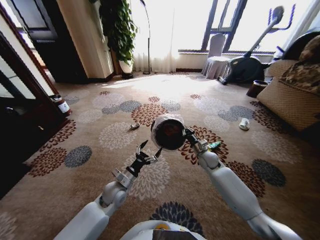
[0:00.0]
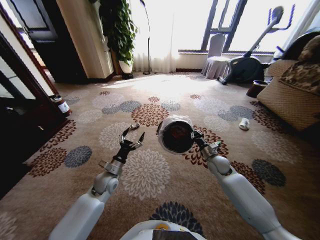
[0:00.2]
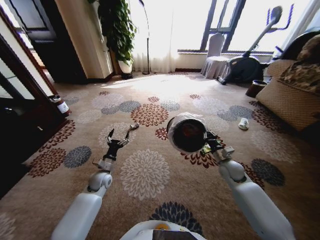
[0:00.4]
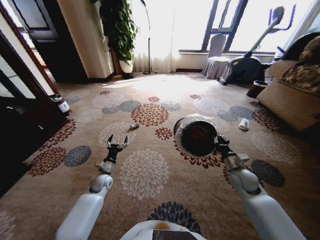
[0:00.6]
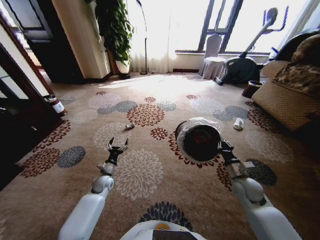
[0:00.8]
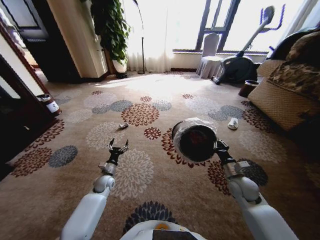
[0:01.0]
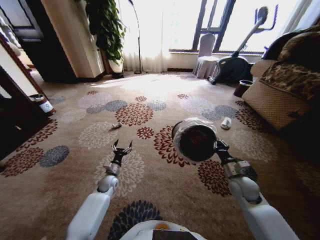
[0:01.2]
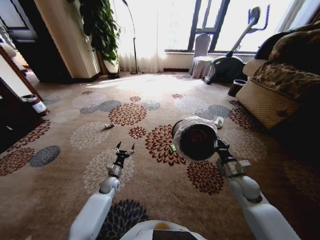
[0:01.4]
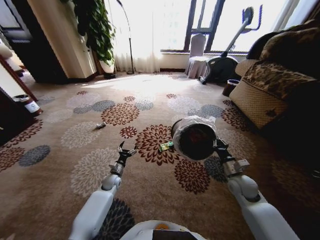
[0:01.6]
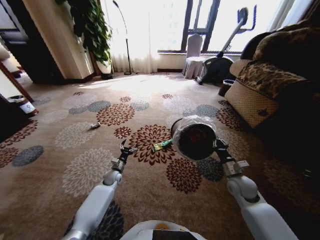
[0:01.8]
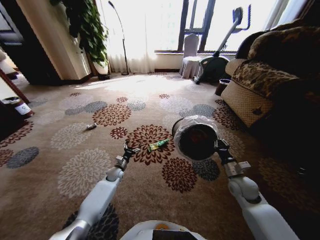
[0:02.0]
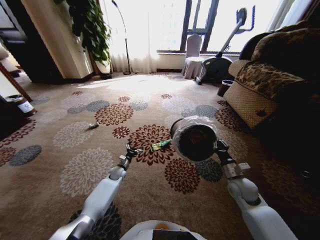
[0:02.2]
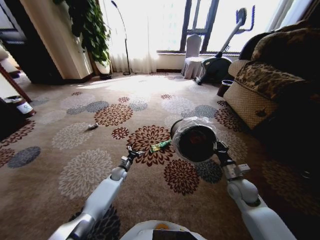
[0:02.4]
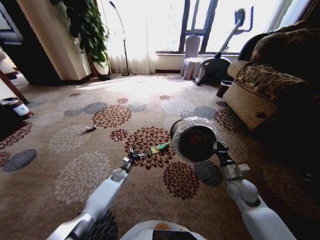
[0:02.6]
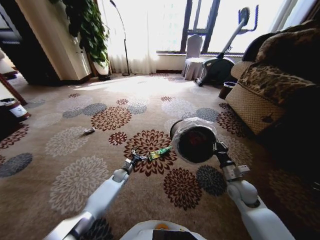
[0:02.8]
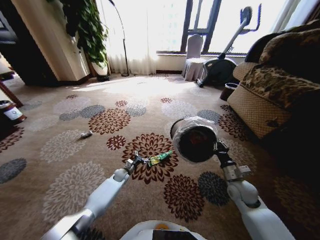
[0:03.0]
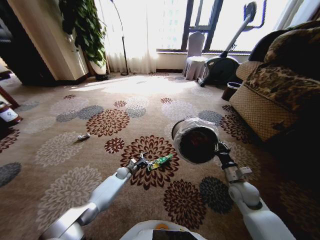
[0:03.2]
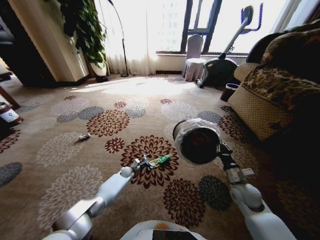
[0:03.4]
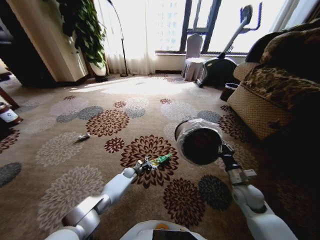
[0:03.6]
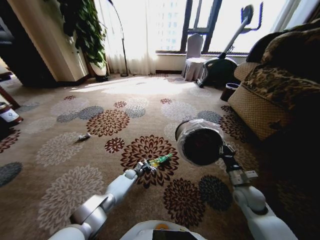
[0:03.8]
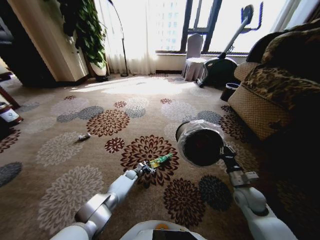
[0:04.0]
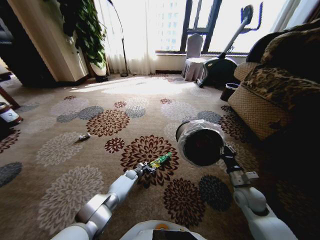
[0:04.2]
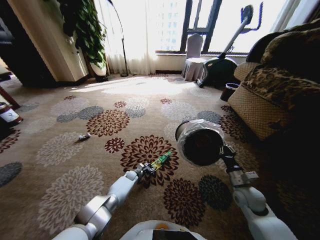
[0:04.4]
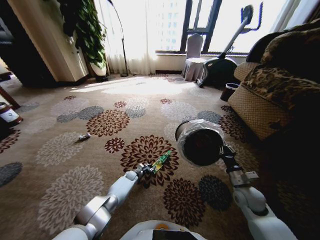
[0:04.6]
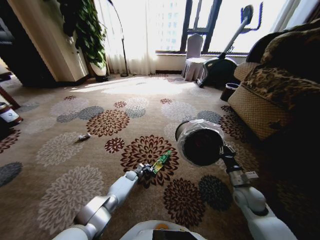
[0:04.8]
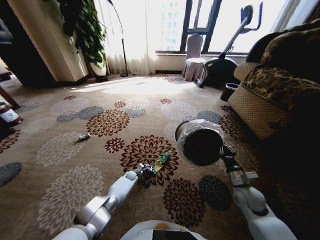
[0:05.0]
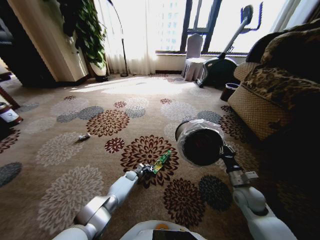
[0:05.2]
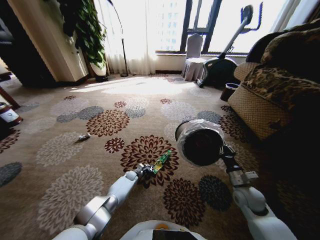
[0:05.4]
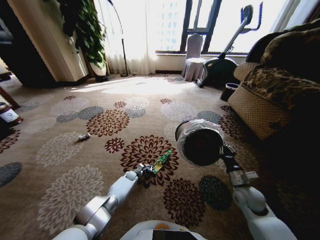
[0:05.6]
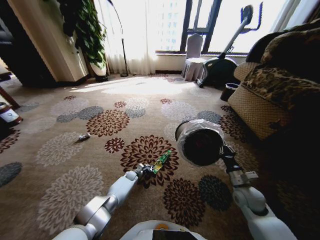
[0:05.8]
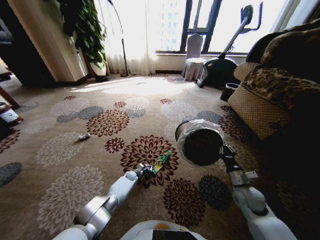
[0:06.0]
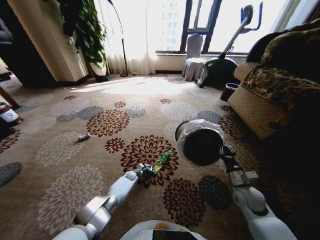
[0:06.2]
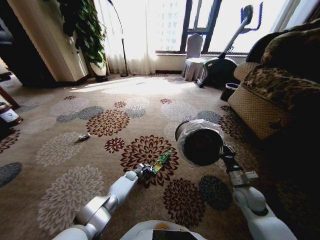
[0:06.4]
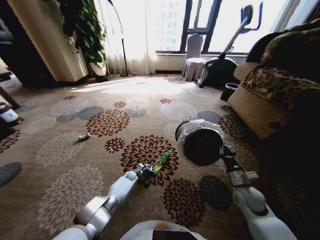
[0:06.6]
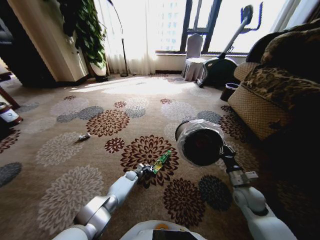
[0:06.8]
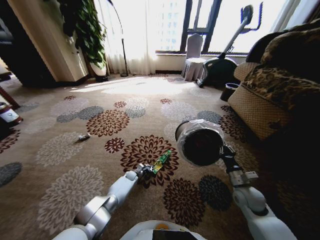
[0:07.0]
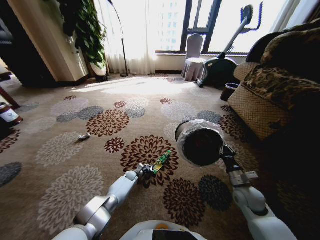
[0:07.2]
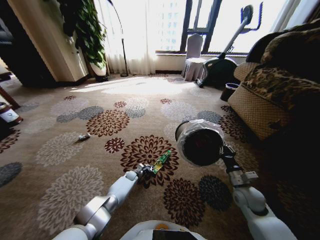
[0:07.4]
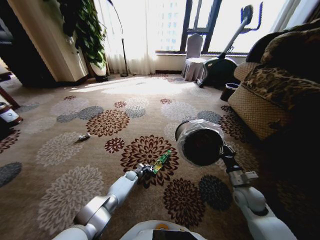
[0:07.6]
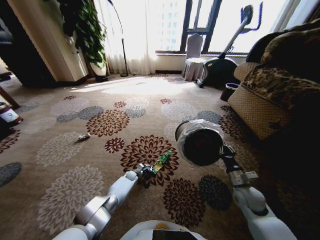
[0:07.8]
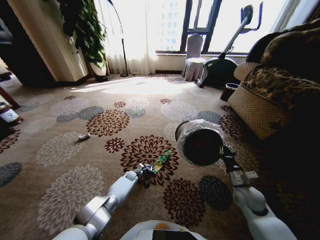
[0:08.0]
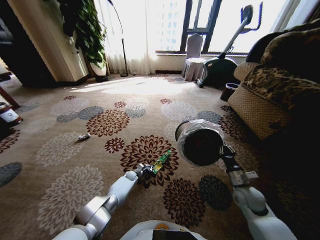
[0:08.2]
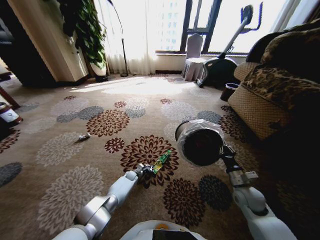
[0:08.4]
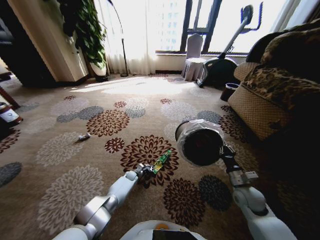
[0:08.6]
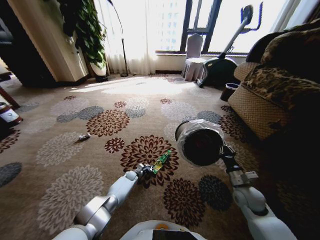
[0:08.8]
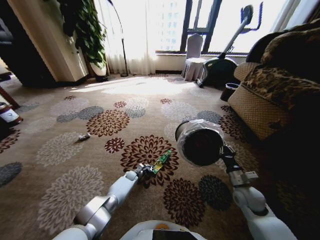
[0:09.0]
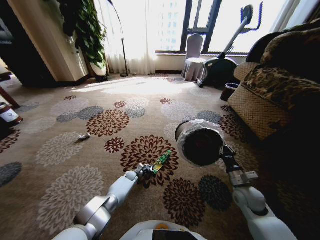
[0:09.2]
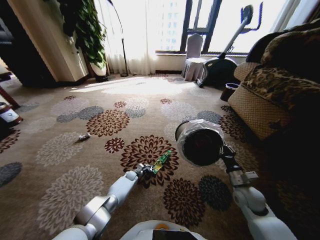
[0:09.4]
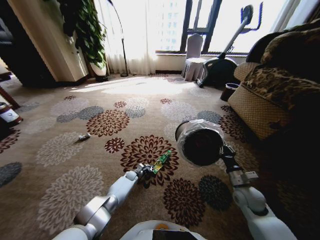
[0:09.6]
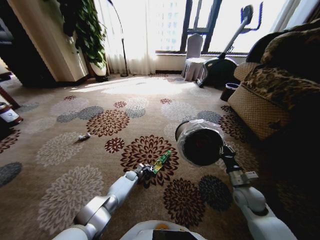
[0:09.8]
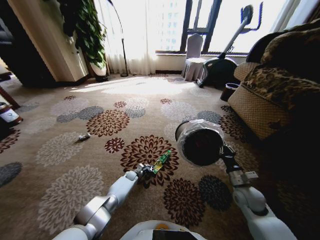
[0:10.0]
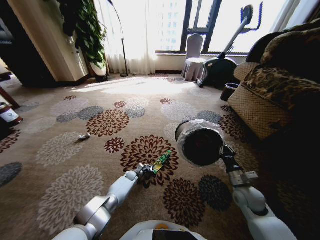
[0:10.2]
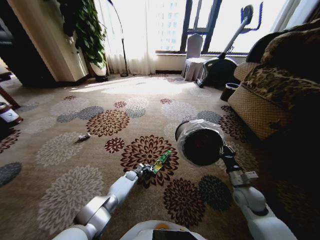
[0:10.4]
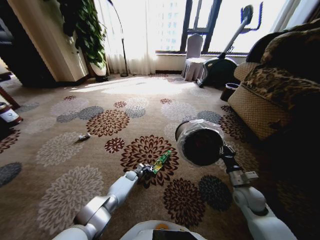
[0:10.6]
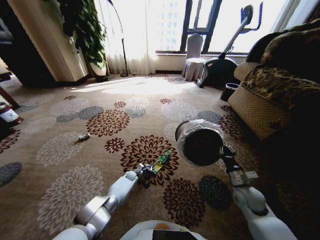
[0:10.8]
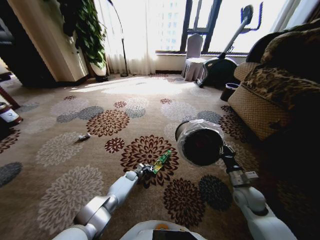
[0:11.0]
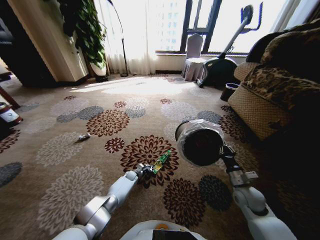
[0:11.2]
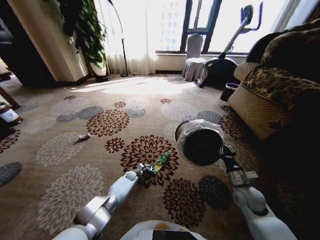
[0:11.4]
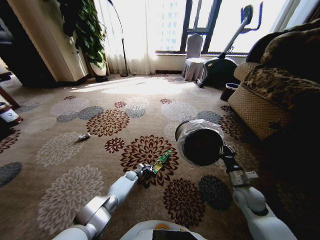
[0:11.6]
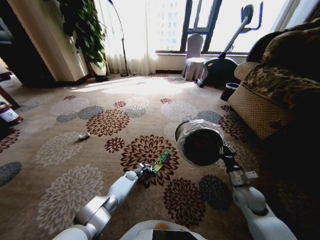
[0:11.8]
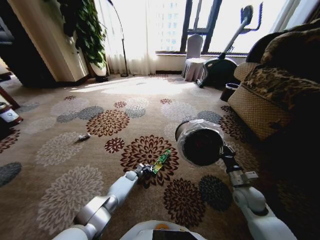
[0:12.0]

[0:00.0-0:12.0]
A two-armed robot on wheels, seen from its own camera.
Task of the whole recording: Pick up the trash from the ground and place it into the trash bin.
0:00.0 to 0:01.6: The left gripper moves downward, forward and to the left, approximately 15 cm. The right gripper goes roughly 15 cm backward and to the right.
0:01.6 to 0:03.0: The left gripper shifts roughly 10 cm forward and downward.
0:03.0 to 0:04.4: The left gripper moves downward, approximately 10 cm, and closes its fingers.
0:06.0 to 0:12.0: Both grippers stay put.

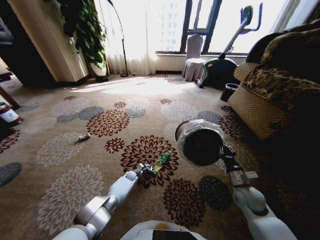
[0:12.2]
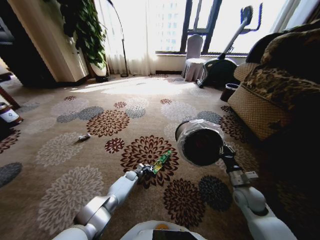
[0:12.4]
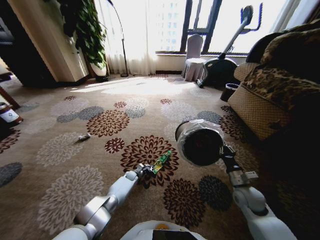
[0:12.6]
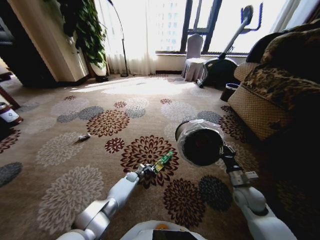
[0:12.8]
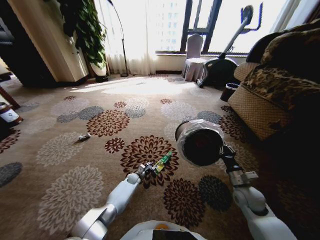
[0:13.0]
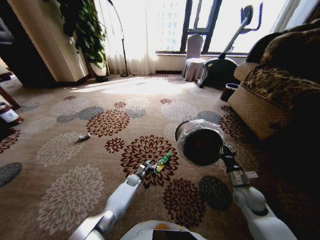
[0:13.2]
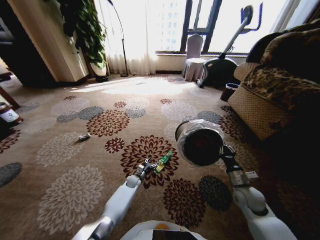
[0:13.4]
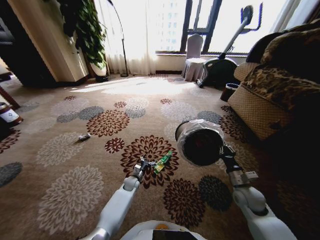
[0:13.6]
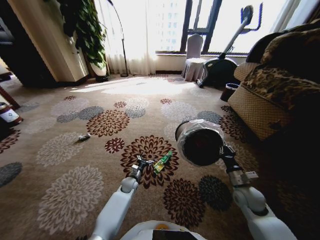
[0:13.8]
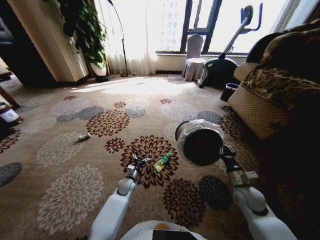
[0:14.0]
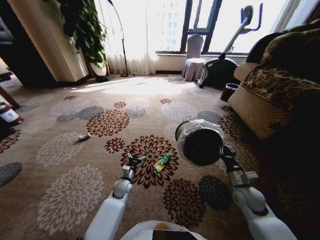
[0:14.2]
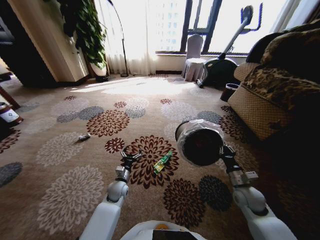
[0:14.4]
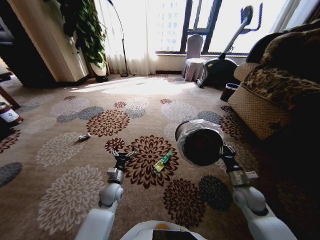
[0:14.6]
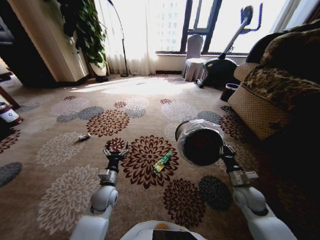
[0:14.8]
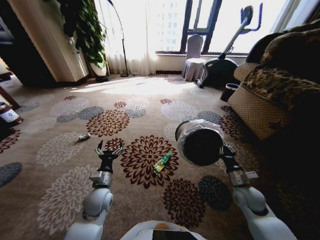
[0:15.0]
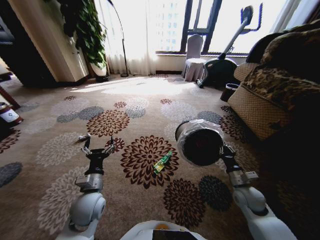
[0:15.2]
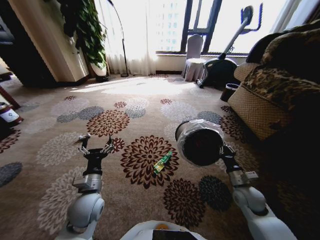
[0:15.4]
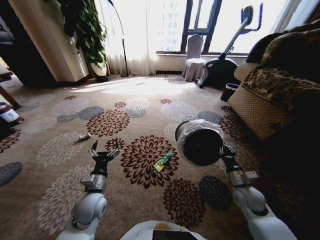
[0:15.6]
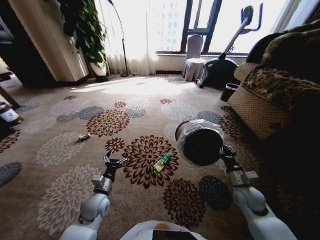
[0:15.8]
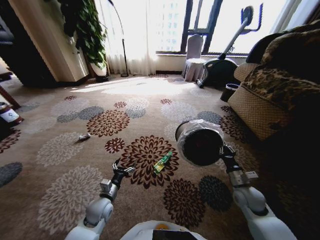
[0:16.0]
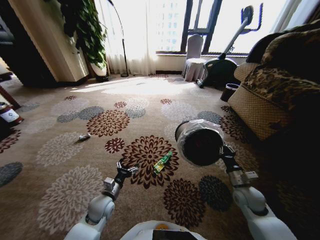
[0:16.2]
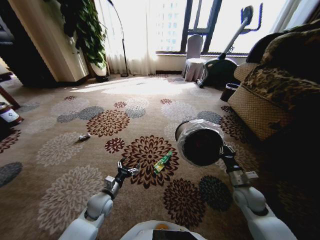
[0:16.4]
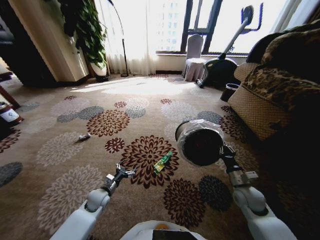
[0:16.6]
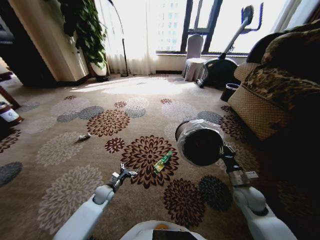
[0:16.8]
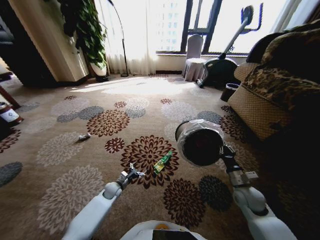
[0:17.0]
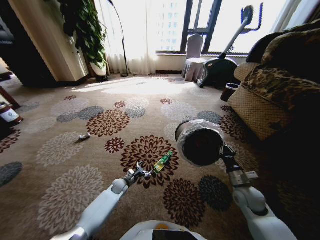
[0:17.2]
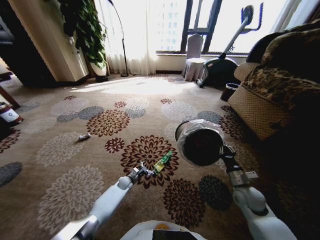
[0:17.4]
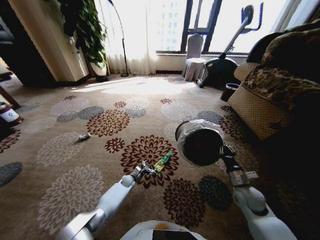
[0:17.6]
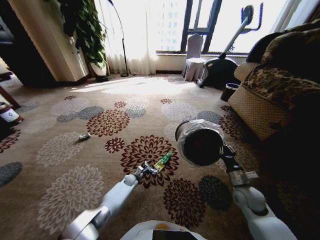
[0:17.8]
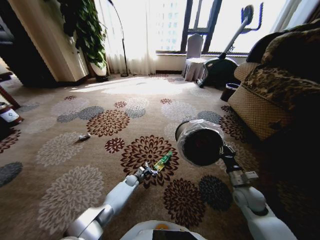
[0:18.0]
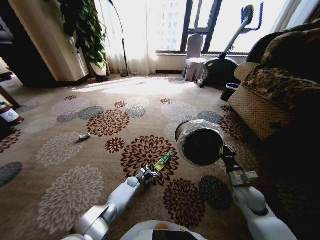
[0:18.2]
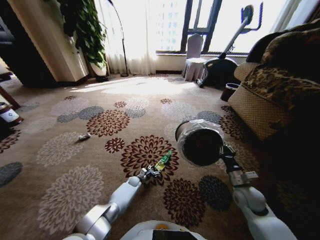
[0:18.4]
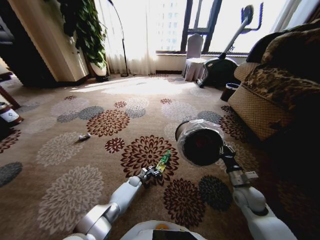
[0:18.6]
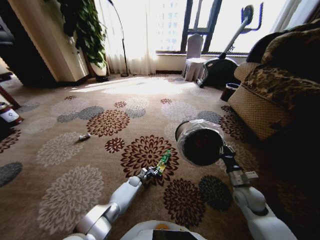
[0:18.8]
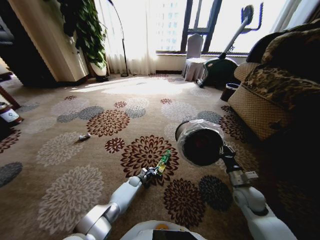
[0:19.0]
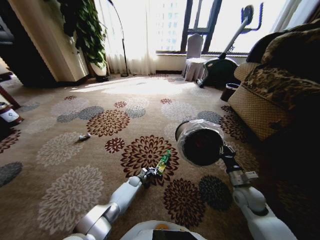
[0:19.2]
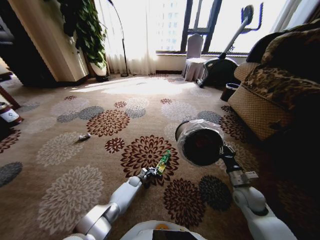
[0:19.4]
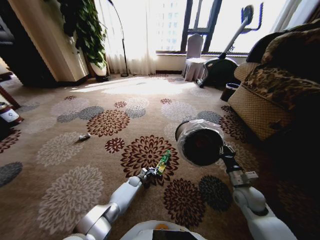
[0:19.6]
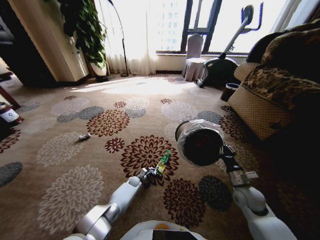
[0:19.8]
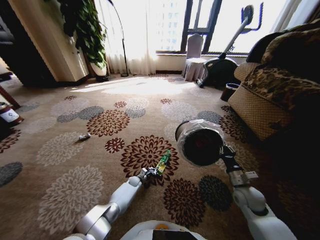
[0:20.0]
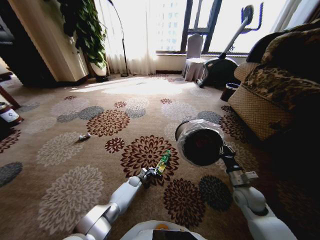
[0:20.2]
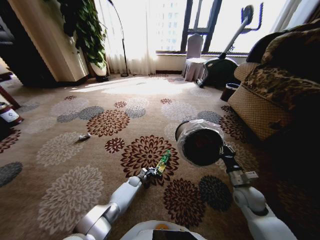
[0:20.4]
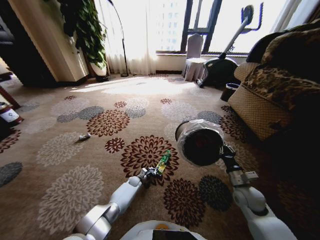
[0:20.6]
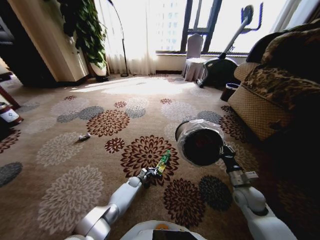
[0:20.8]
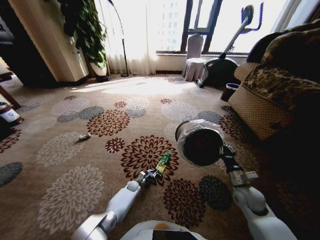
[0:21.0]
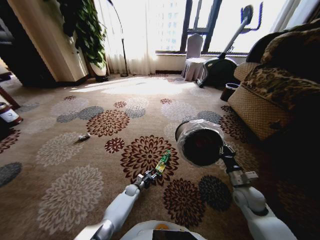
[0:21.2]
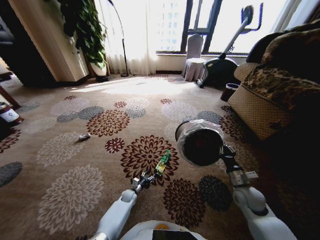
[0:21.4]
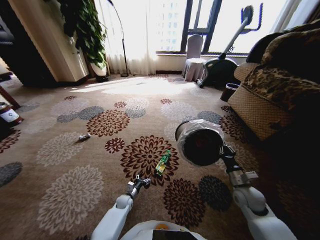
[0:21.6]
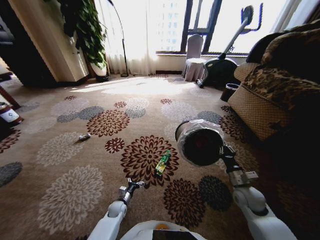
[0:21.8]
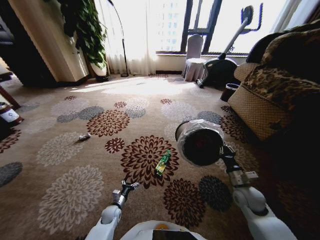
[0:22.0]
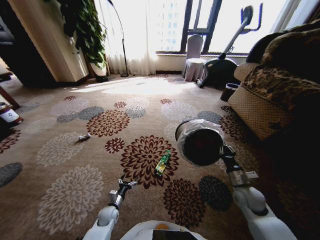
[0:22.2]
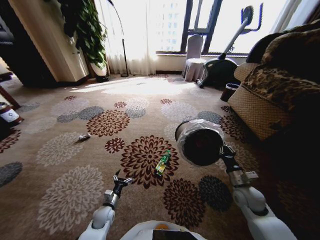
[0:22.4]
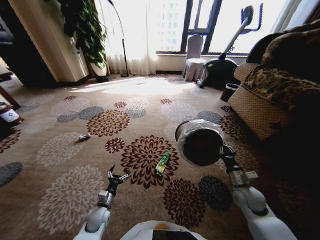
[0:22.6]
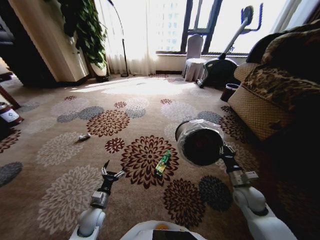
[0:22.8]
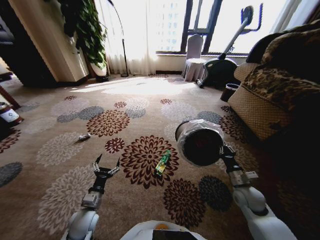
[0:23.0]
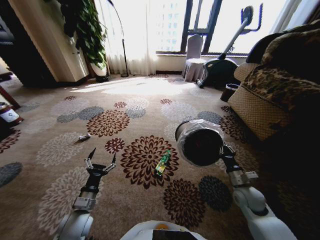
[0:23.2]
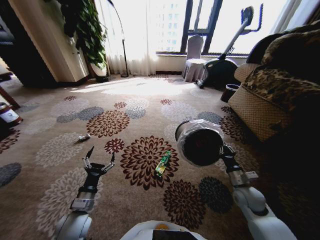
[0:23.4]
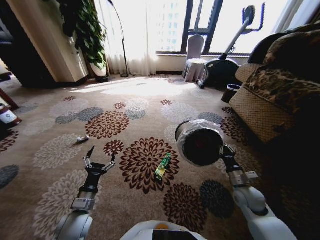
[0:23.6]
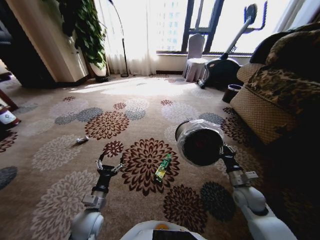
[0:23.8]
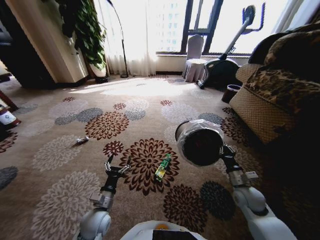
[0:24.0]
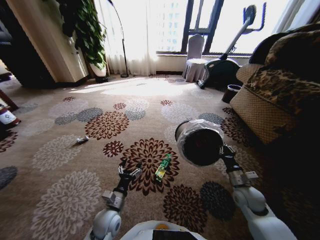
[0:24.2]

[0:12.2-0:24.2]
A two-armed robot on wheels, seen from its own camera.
Task of the whole recording: Pick up the trash from the ground and place it into the trash bin.
0:12.2 to 0:13.8: The left gripper travels upward and backward by about 15 cm, and opens its fingers.
0:13.8 to 0:15.2: The left gripper shifts approximately 25 cm upward and backward.
0:15.2 to 0:16.6: The left gripper is displaced downward by roughly 15 cm.
0:16.6 to 0:18.2: The left gripper is displaced downward, forward and to the right by roughly 25 cm.
0:18.2 to 0:19.8: The left gripper closes.
0:19.8 to 0:21.2: The left gripper travels backward by approximately 5 cm, and opens up.
0:21.2 to 0:22.6: The left gripper travels backward, upward and to the left by some 25 cm, and opens up.
0:22.6 to 0:24.2: The left gripper heads to the right and upward, covering about 10 cm.
